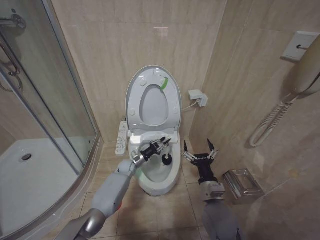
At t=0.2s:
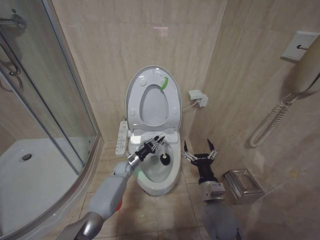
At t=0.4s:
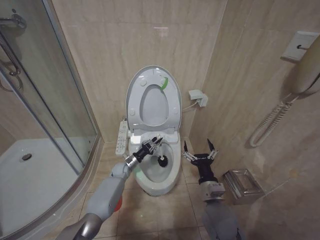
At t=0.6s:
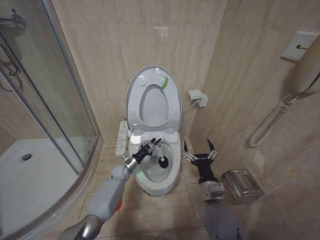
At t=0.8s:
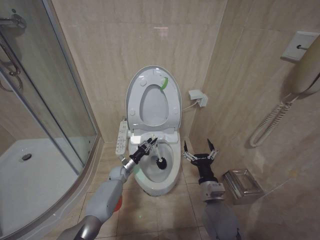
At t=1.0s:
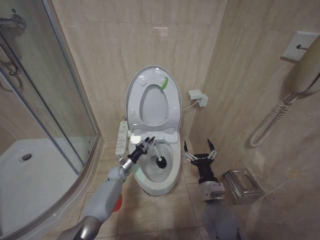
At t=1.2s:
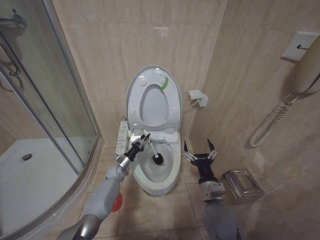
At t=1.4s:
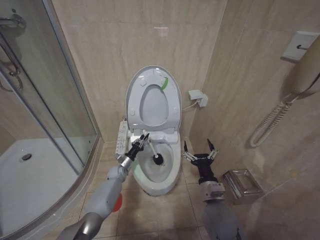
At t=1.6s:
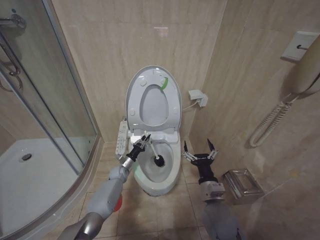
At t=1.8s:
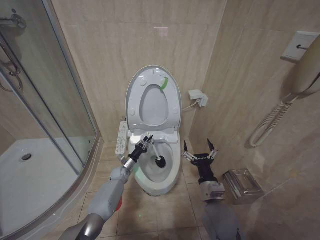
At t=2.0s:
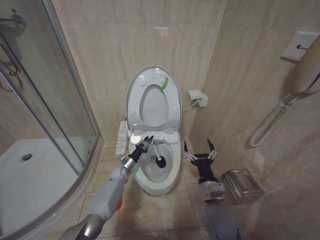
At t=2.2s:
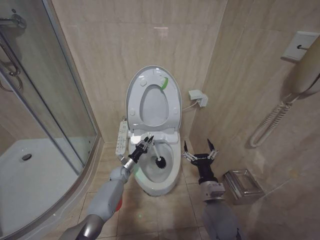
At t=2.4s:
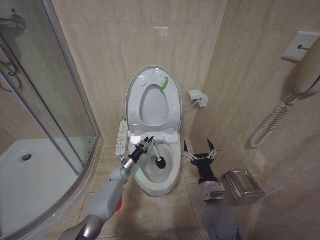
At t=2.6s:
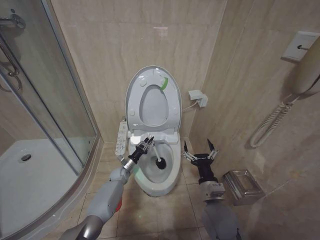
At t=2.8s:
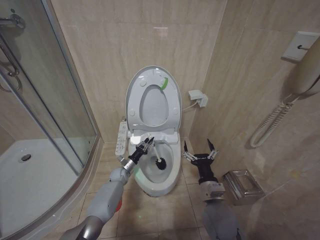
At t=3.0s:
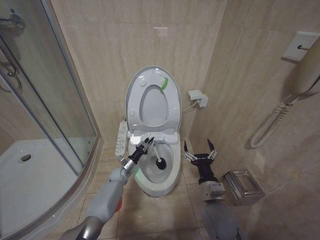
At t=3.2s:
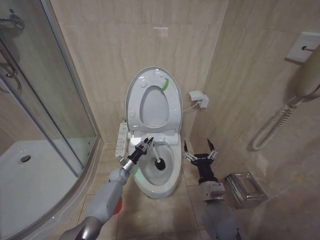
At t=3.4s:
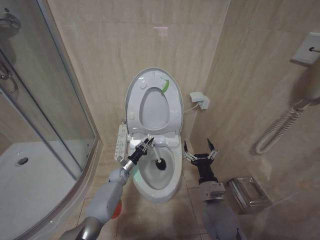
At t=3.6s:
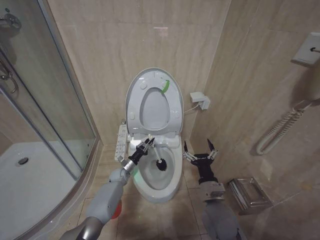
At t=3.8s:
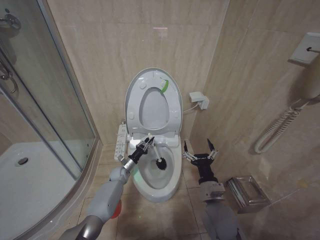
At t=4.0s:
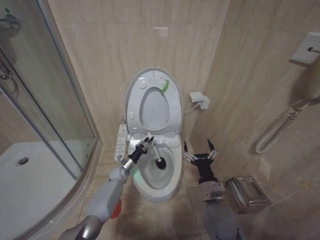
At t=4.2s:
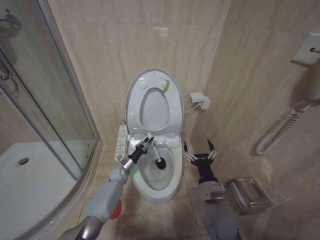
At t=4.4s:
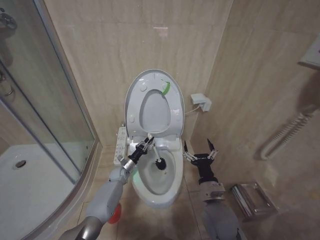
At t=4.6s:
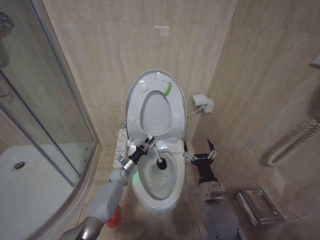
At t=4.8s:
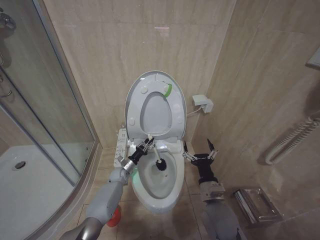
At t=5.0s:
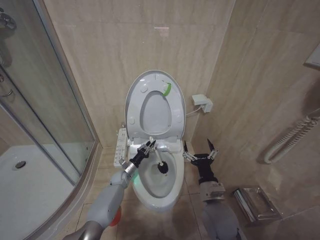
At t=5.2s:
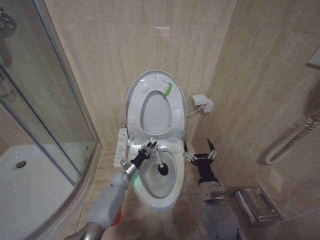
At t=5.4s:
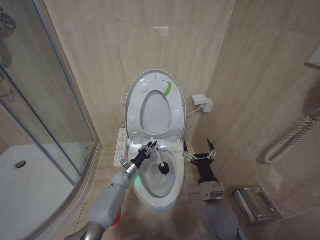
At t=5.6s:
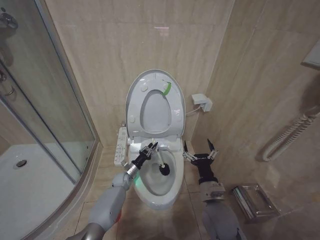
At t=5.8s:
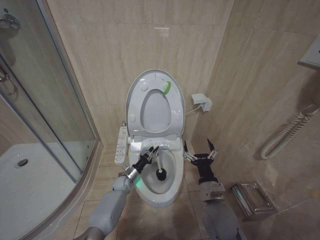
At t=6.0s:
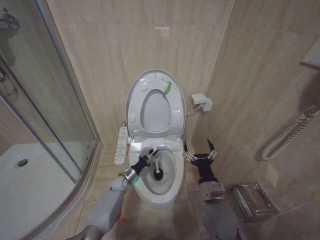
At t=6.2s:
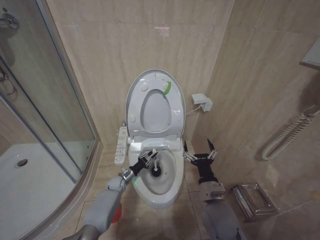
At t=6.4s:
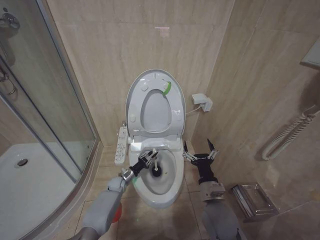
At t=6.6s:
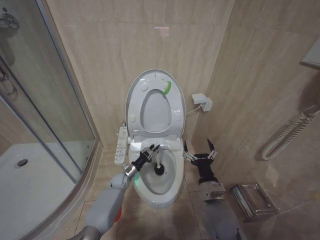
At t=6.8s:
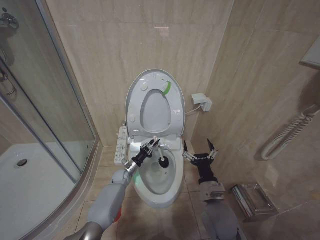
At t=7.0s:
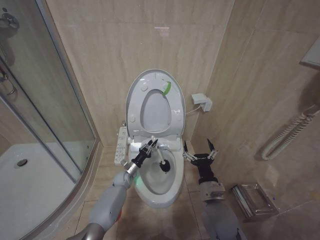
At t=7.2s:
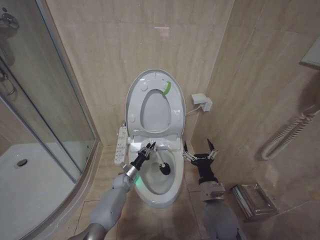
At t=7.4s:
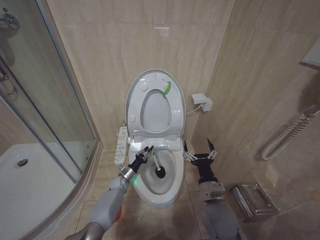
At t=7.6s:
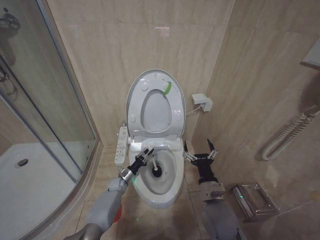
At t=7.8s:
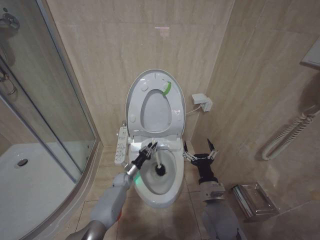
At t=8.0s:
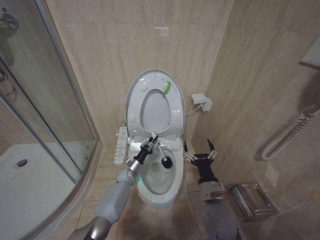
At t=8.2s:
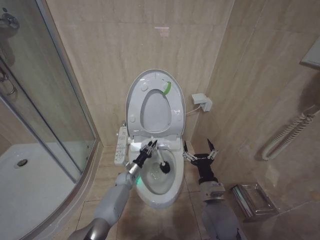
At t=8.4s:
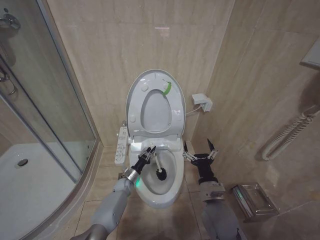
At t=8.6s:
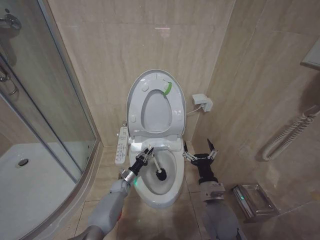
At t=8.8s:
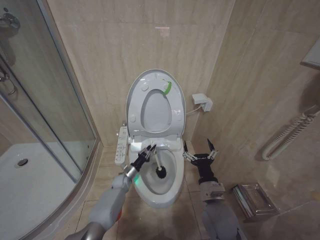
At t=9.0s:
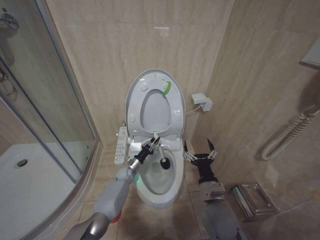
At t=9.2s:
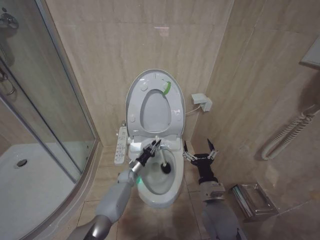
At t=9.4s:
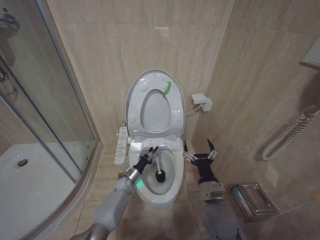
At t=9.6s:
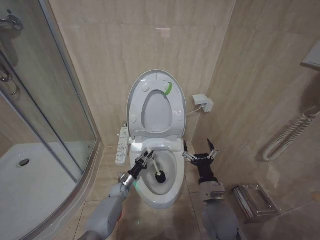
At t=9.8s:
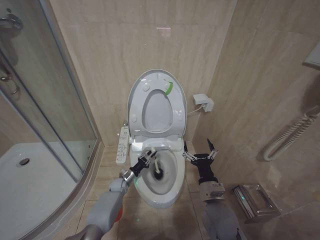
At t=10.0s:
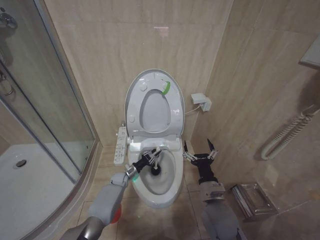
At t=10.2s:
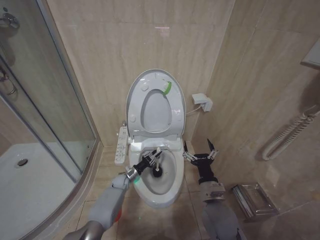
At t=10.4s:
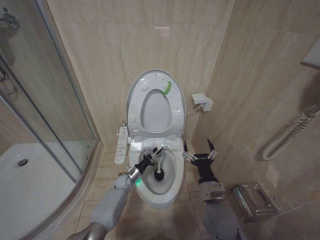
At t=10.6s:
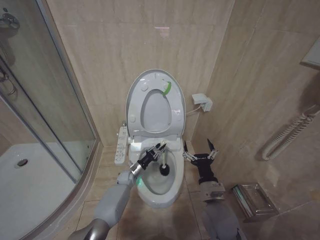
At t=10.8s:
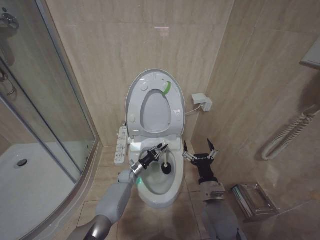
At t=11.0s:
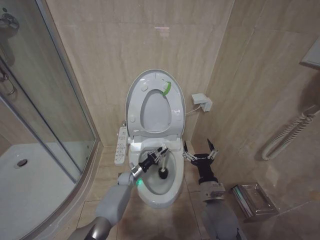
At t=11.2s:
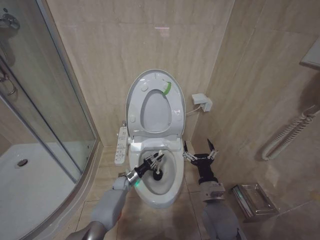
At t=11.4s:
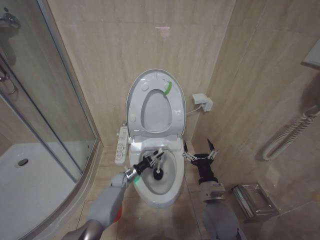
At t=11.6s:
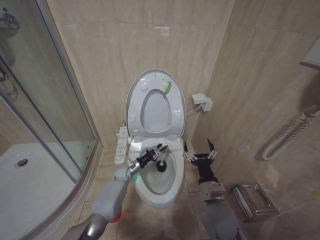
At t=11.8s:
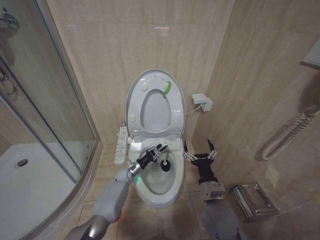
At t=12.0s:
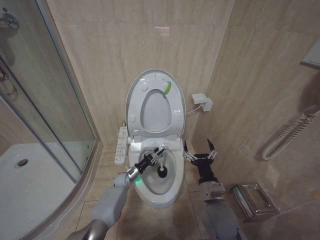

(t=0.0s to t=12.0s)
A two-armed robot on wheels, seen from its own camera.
Task of the whole recording: Open the toilet lid, clean the toilet bowl with a toilet brush, close the toilet lid, and flush.
t=0.0s - t=1.6s: The left gripper moves to the left, about 5 cm.
t=1.6s - t=3.0s: Both grippers stay about where they are.
t=3.0s - t=4.4s: Both grippers stay put.
t=4.4s - t=6.0s: The left gripper ends up approximately 5 cm from where it was.
t=6.0s - t=7.6s: The grippers make only small movements.
t=7.6s - t=9.0s: The left gripper moves roughly 5 cm.

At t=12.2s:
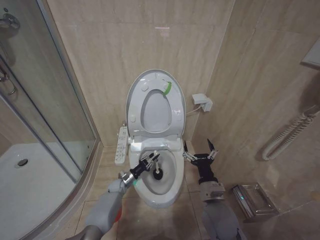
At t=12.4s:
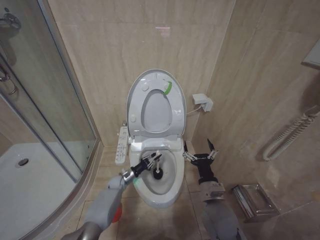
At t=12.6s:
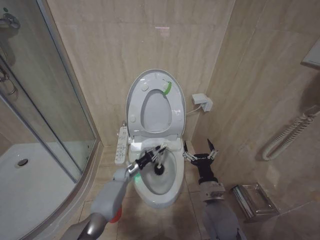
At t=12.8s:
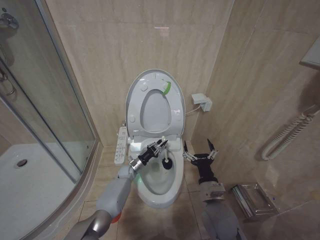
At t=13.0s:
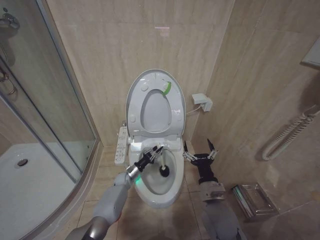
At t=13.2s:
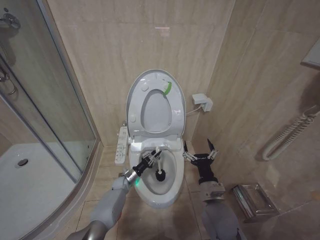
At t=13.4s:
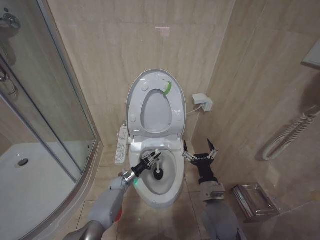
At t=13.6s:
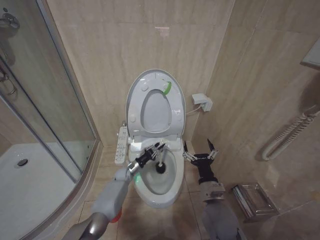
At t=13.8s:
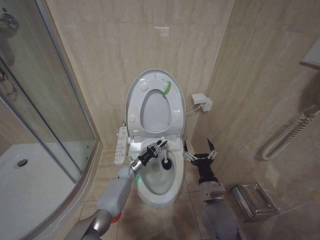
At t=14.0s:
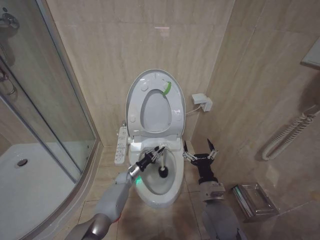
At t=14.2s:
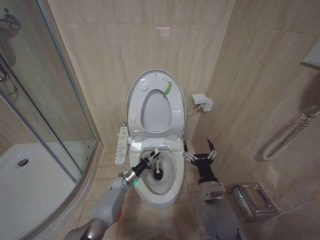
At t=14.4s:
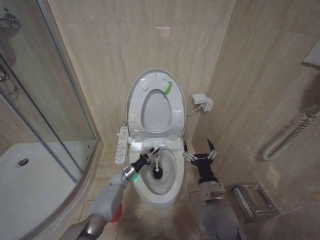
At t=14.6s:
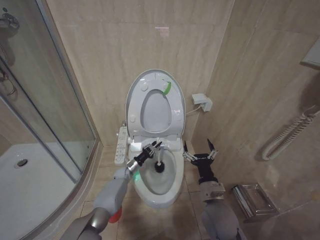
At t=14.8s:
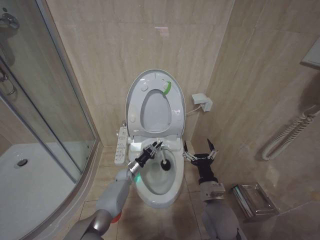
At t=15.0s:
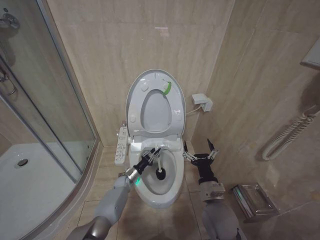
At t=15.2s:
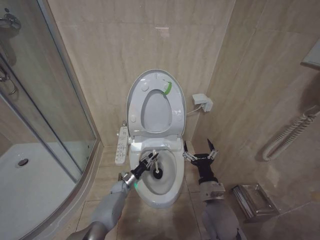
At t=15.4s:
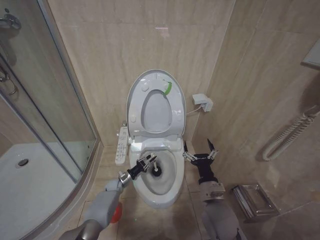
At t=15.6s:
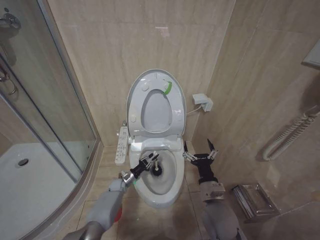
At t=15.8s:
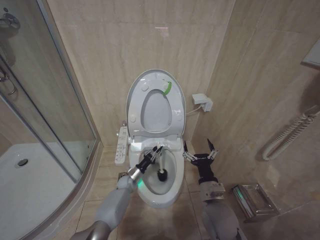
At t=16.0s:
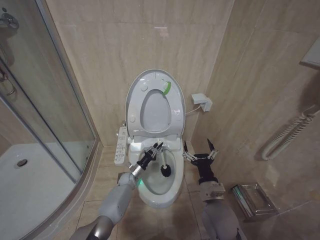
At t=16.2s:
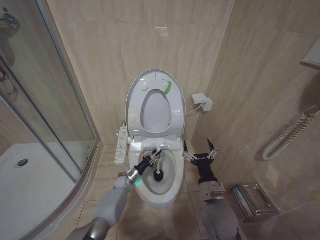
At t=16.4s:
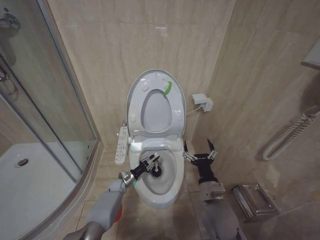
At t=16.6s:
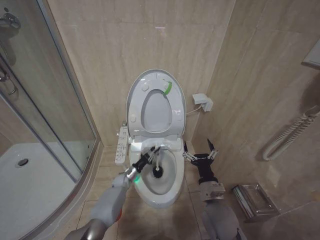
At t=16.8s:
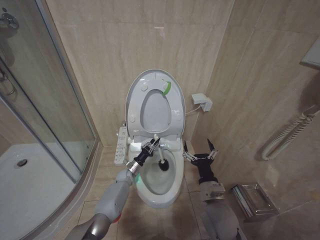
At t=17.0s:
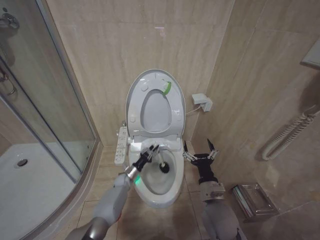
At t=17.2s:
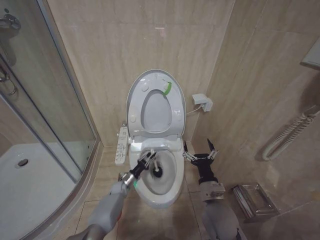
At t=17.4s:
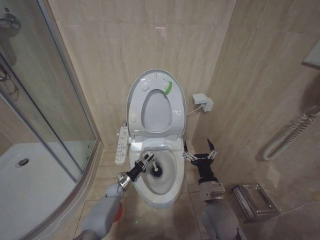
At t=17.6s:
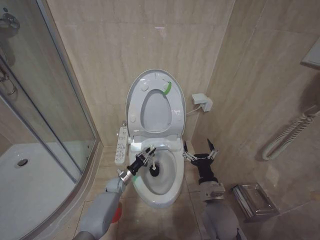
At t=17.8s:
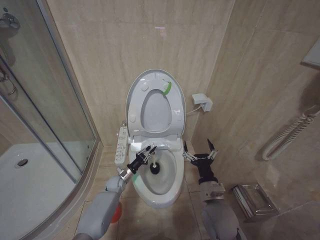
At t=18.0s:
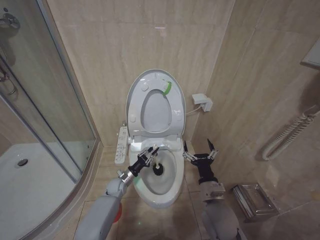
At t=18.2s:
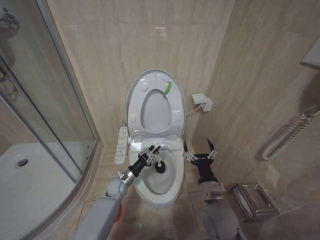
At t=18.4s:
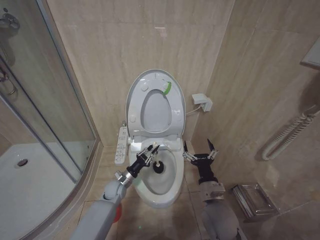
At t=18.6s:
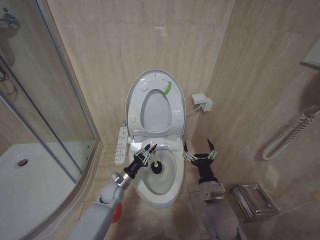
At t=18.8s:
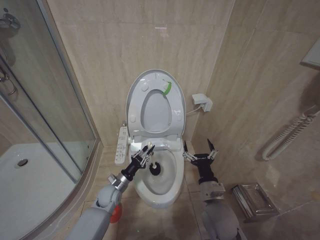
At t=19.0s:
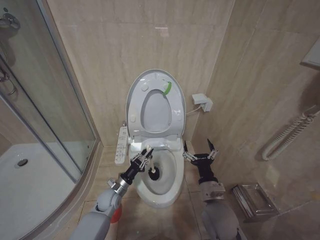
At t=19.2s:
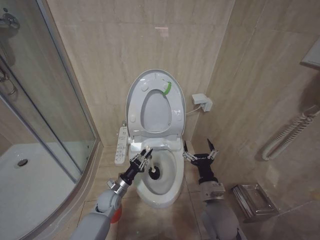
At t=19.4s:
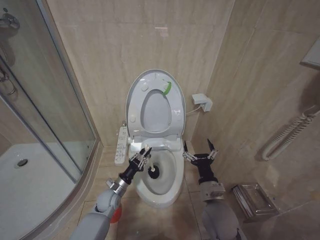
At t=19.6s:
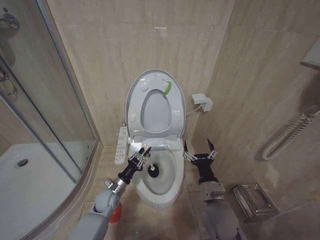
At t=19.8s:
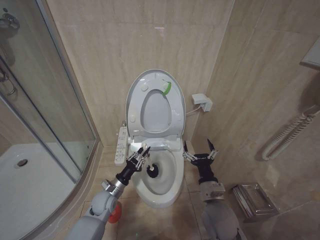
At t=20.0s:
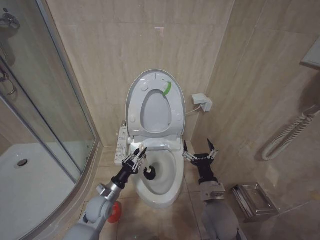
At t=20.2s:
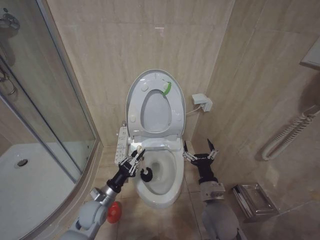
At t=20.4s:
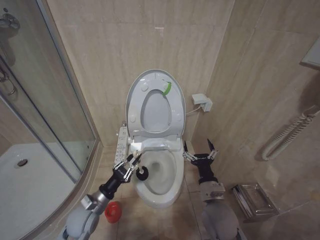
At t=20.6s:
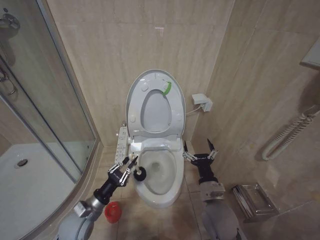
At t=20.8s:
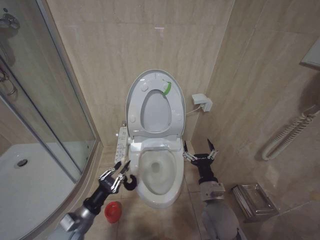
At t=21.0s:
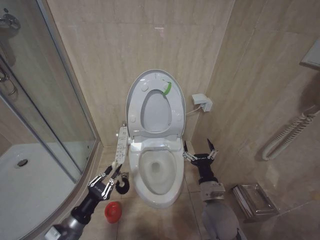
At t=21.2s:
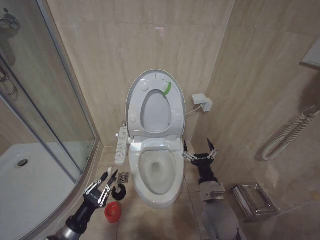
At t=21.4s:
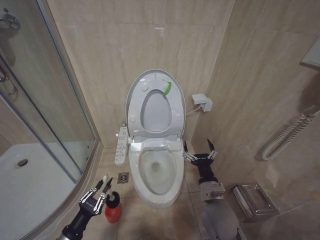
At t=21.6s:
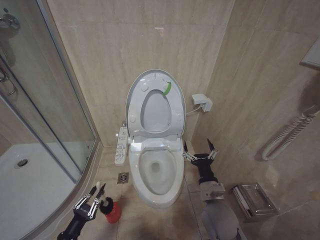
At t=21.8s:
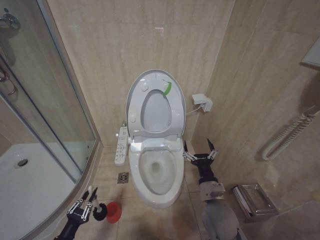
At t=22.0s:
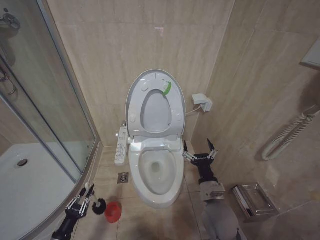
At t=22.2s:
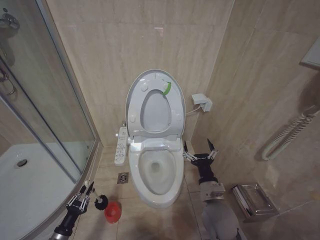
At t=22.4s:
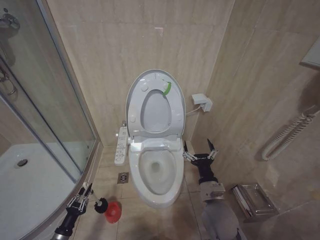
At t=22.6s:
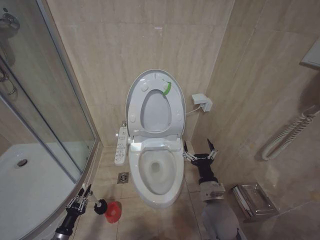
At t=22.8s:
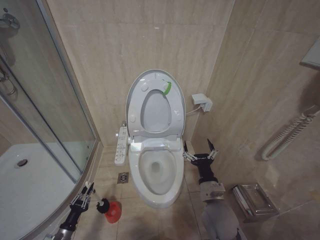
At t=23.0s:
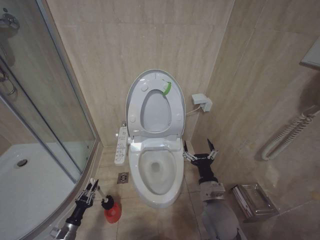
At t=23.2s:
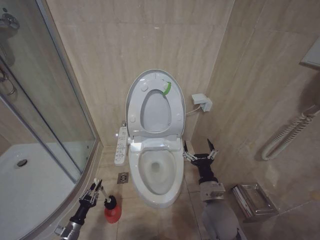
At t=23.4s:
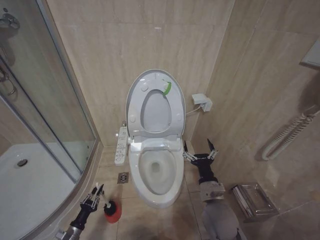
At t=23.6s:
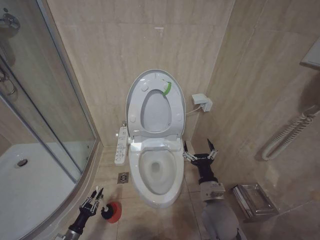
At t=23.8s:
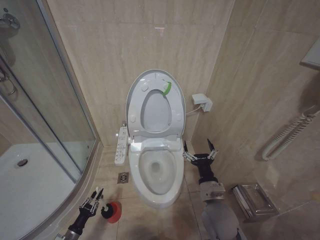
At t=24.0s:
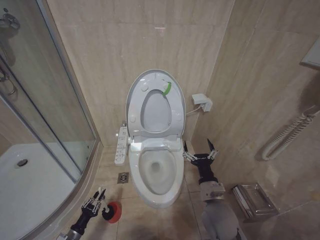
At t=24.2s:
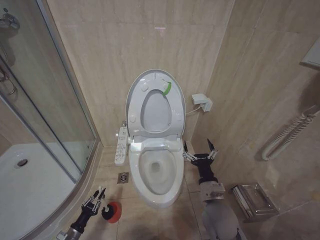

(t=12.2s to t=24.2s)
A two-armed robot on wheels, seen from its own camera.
Task of the whole recording: Open the toilet lid, clean the toilet bowl with a toilet brush, close the toilet lid, and flush.
t=12.2s - t=13.8s: The left gripper moves up and down over roughly 5 cm, changing direction 2 times.
t=13.8s - t=15.2s: The left gripper goes up and down, roughly 5 cm each way, reversing 2 times.
t=15.2s - t=16.6s: The left gripper moves roughly 5 cm to the right and comes back.
t=16.6s - t=18.2s: The left gripper goes approximately 5 cm upward.
t=18.2s - t=19.8s: The left gripper travels backward by approximately 10 cm.
t=19.8s - t=21.2s: The left gripper is displaced backward and to the left by roughly 20 cm.
t=21.2s - t=22.6s: The left gripper travels downward and to the left by roughly 25 cm.
t=22.6s - t=24.2s: There are only small adjustments of the grippers.
